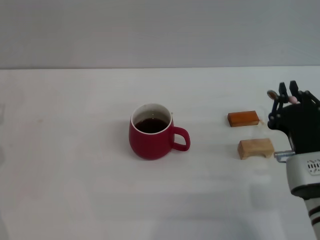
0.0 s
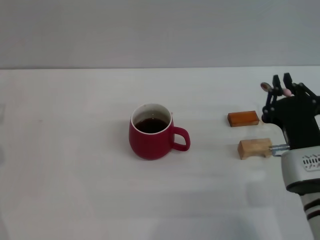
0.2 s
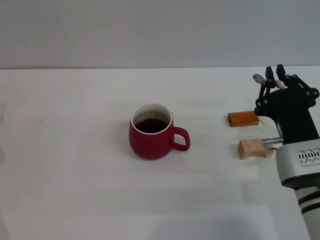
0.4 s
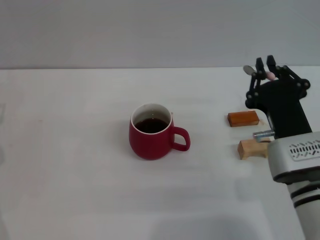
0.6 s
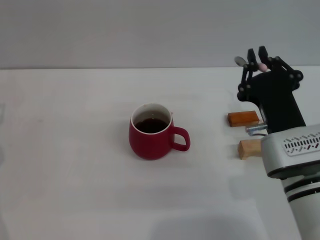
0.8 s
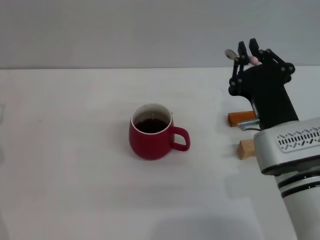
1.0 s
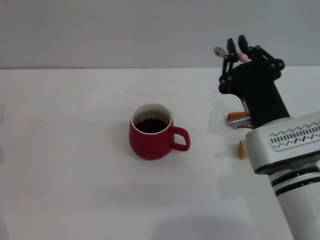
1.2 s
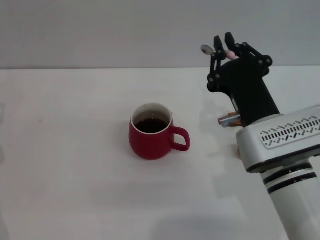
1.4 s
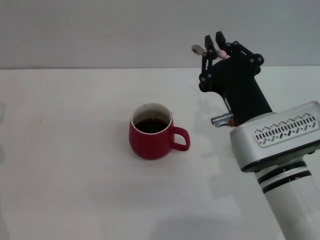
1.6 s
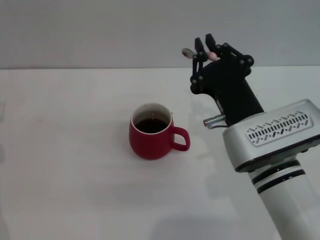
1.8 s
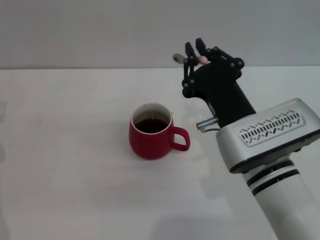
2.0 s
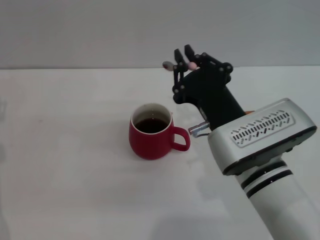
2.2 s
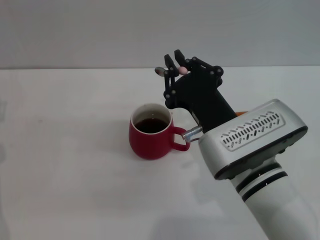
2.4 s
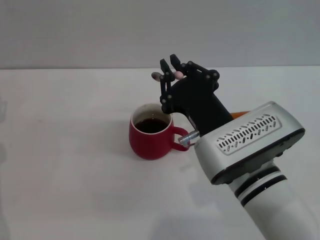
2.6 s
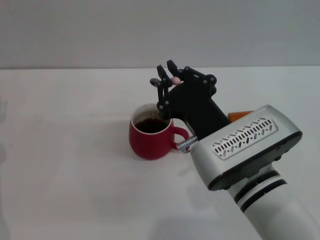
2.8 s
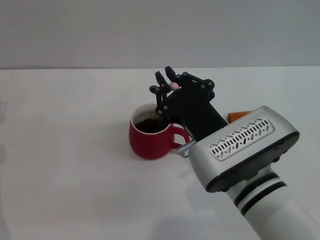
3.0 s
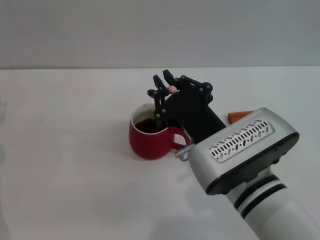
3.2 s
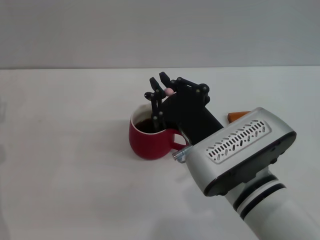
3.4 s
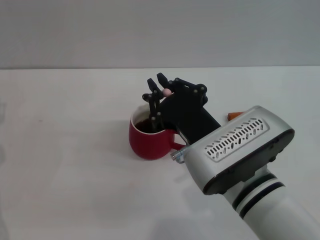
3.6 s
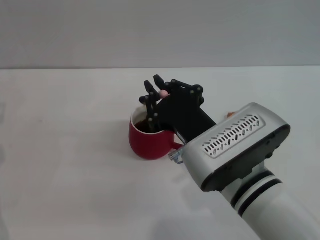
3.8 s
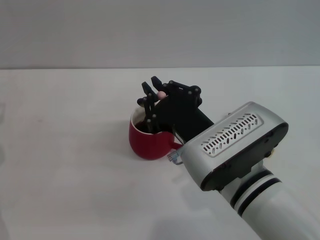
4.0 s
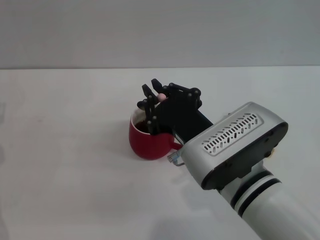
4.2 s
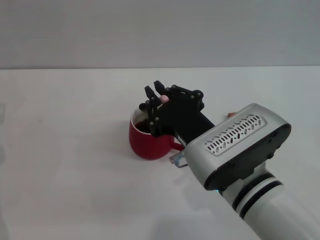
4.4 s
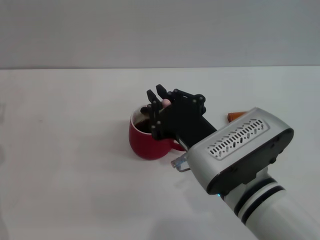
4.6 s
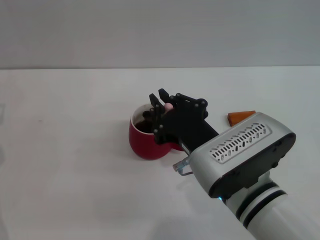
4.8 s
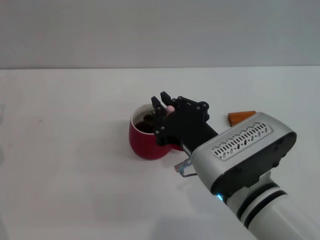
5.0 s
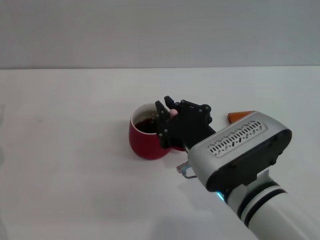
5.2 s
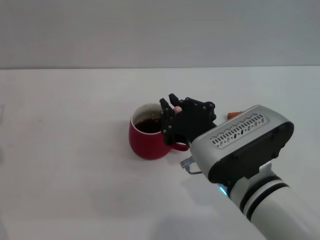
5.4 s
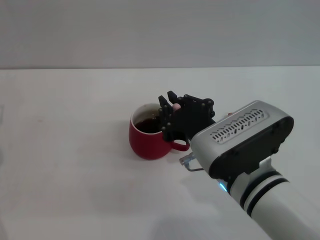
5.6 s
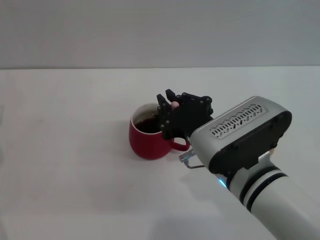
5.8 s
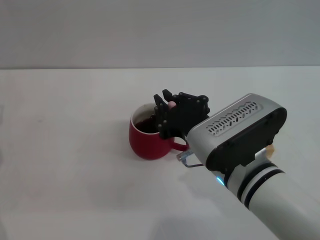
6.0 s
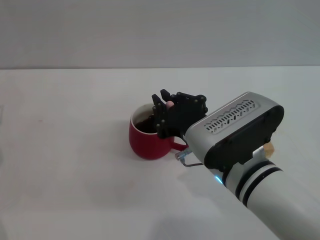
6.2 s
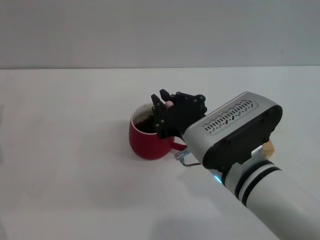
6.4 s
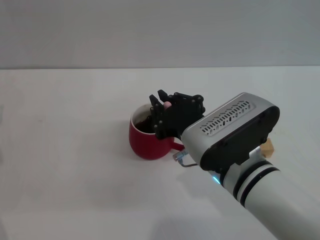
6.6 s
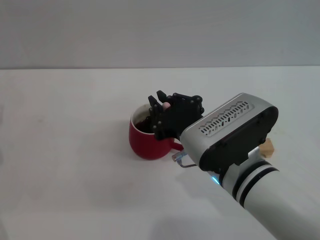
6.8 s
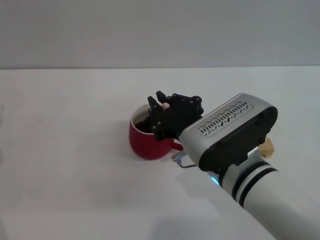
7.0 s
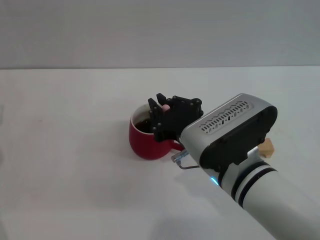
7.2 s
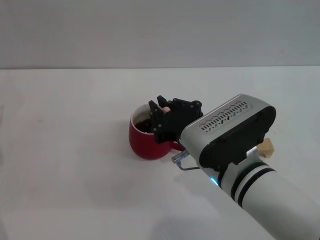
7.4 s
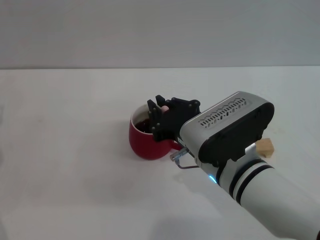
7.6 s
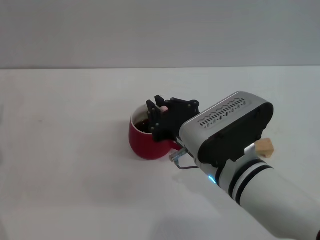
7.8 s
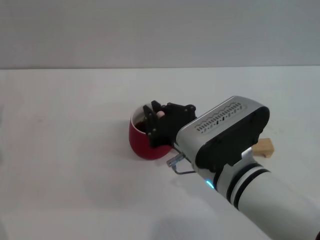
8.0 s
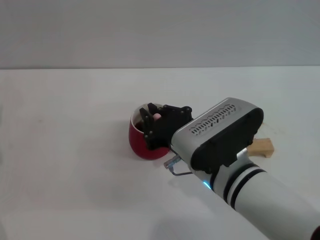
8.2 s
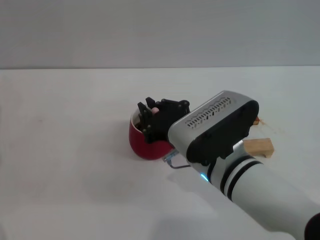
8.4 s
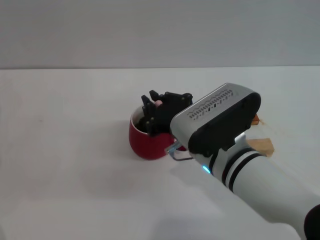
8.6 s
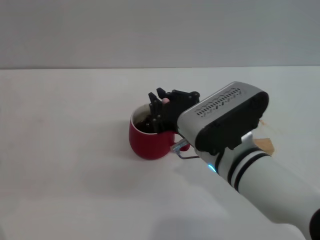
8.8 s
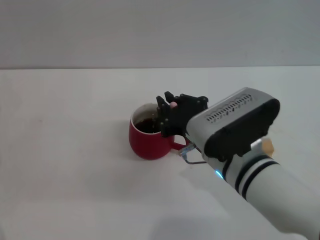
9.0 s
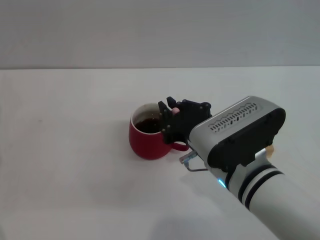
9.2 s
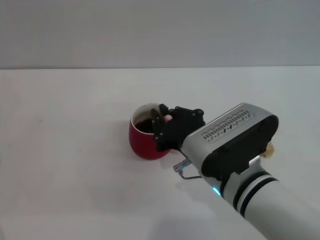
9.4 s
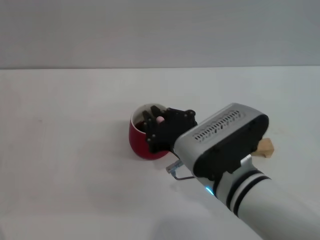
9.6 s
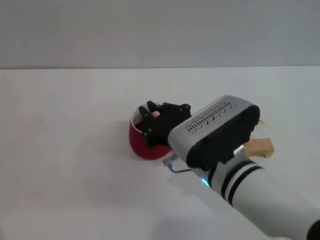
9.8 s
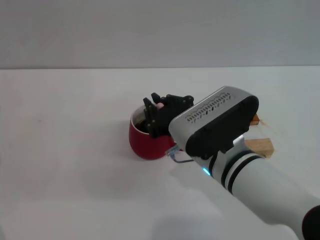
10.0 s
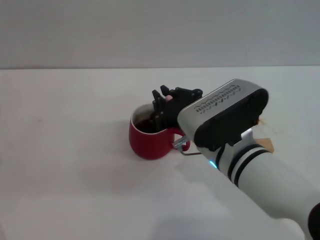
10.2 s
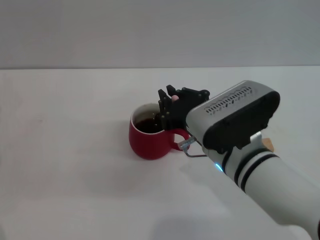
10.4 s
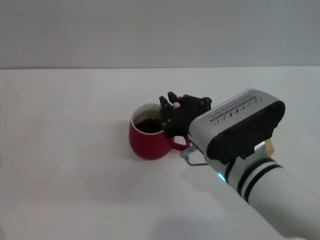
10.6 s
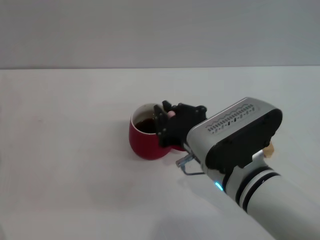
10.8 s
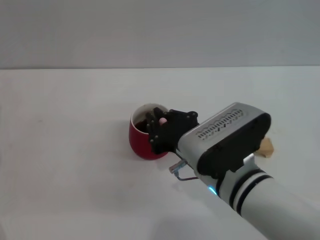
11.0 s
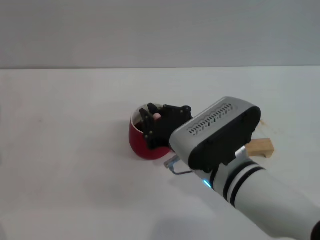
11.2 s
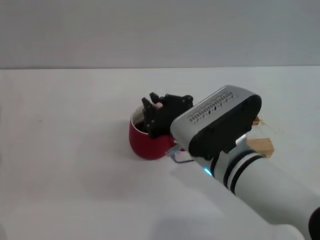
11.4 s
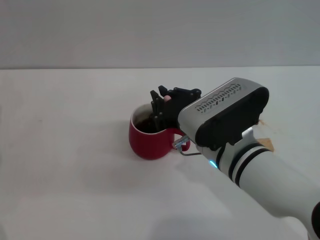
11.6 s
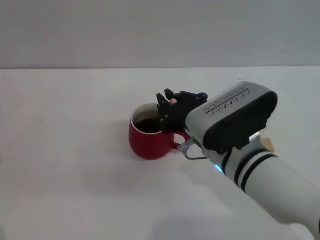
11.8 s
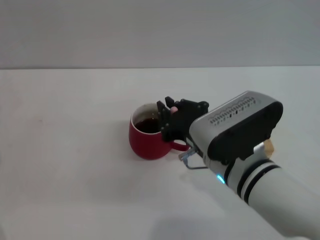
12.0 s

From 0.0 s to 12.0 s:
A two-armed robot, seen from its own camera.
Task of the whole recording: Move the red cup to the center, lift the pink spoon, stir it three times in the cup, and put the spoon into the cup.
From 0.0 s to 1.6 s: The right gripper is displaced to the left and upward by about 10 cm.
From 3.0 s to 6.0 s: There are only small adjustments of the grippers.
From 6.0 s to 7.6 s: Both grippers stay put.
From 7.6 s to 12.0 s: There are only small adjustments of the grippers.

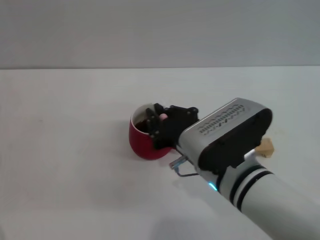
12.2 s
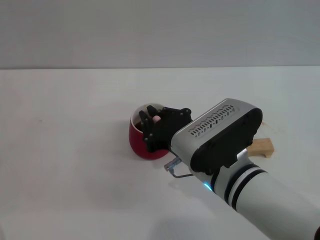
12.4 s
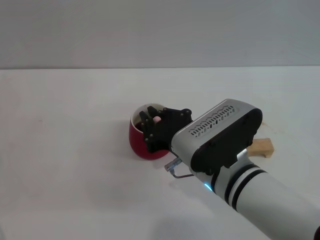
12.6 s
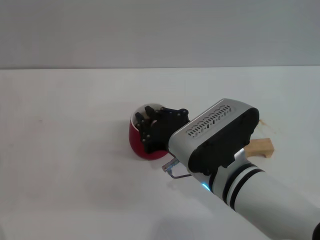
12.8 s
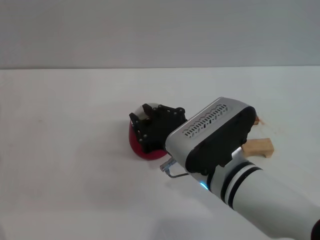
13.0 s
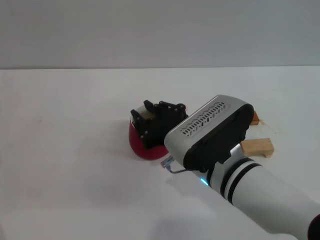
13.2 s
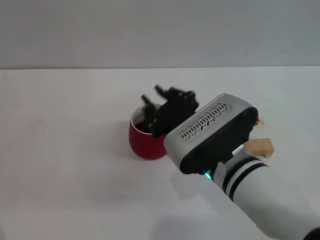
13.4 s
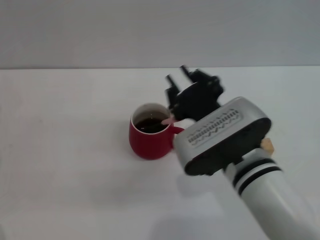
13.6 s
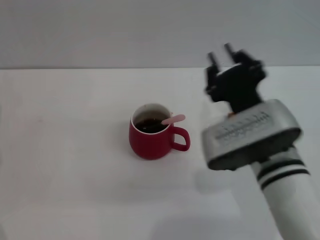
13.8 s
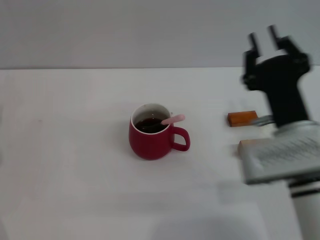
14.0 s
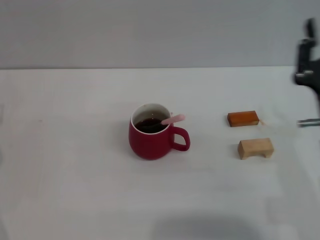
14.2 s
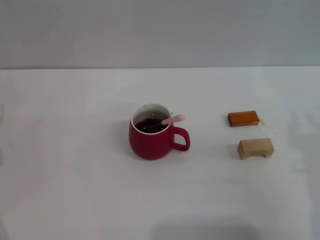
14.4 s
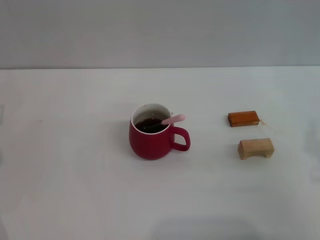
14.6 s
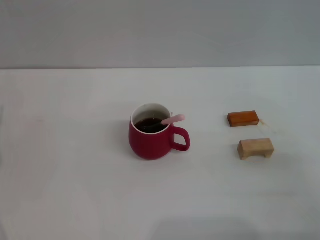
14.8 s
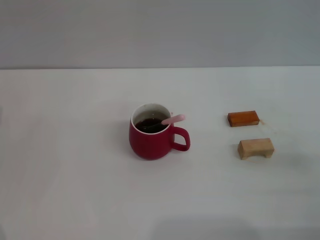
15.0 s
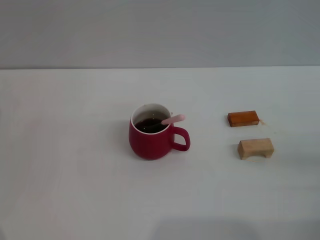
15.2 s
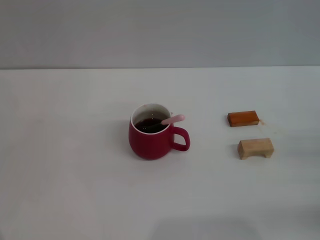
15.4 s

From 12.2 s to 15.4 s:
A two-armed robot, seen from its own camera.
Task of the whole recording: Move the red cup to the center, lift the pink spoon, stir it three times in the cup, and put the spoon into the cup.
From 13.8 s to 15.4 s: The right gripper is displaced to the right by approximately 25 cm.

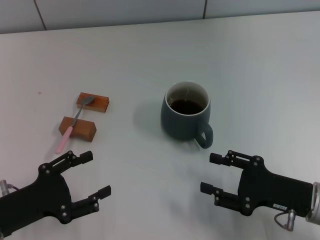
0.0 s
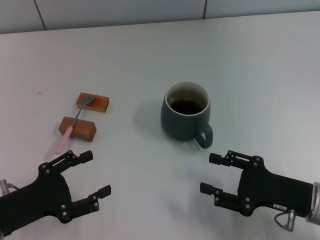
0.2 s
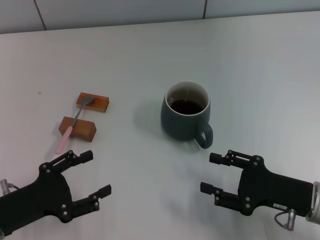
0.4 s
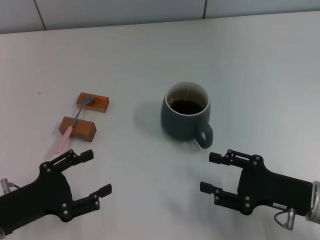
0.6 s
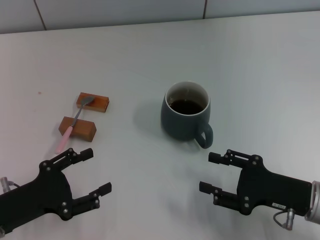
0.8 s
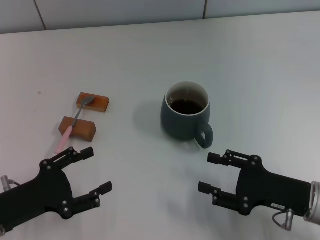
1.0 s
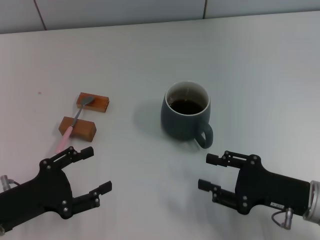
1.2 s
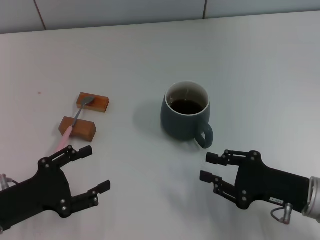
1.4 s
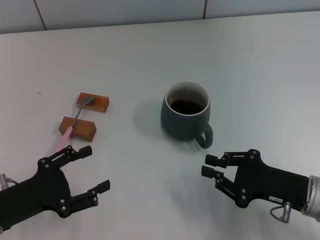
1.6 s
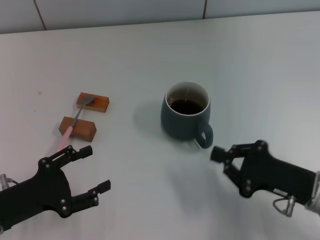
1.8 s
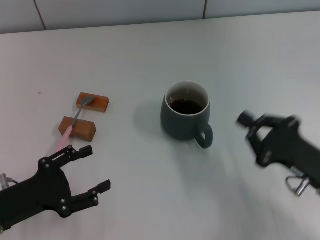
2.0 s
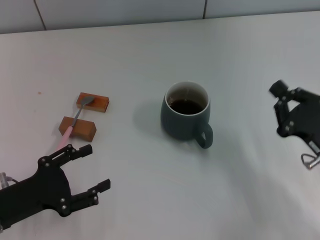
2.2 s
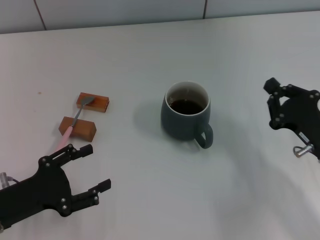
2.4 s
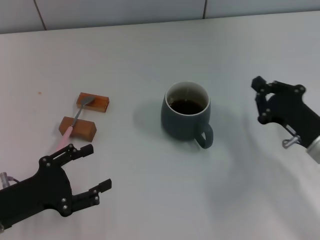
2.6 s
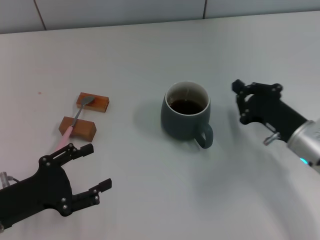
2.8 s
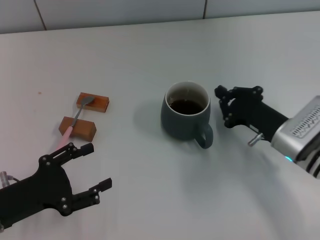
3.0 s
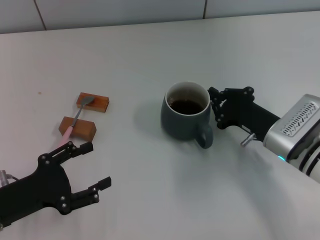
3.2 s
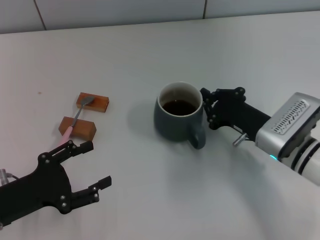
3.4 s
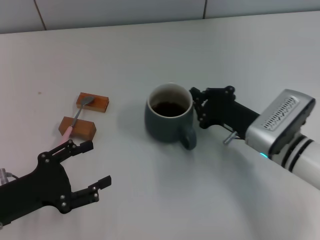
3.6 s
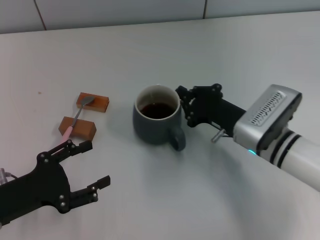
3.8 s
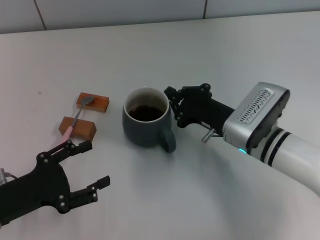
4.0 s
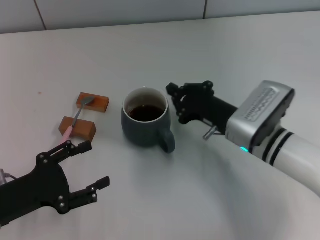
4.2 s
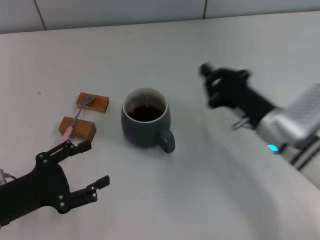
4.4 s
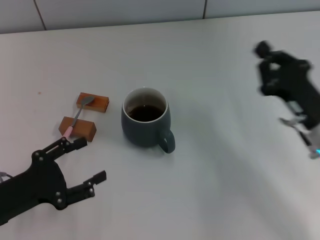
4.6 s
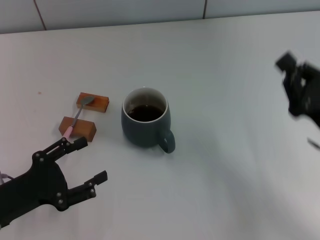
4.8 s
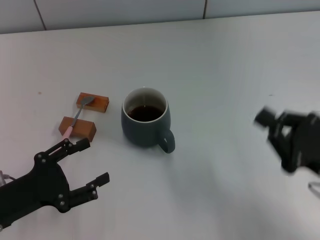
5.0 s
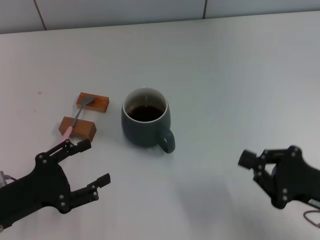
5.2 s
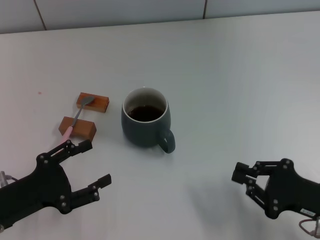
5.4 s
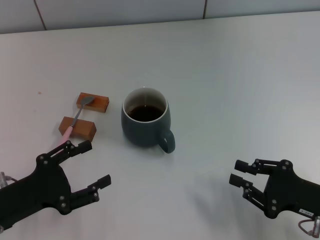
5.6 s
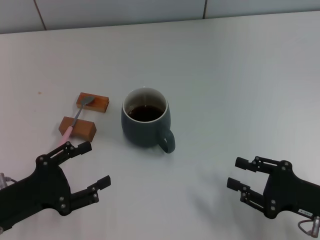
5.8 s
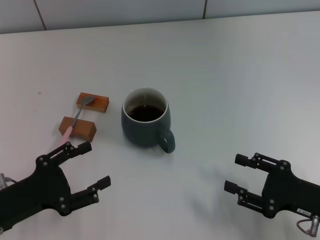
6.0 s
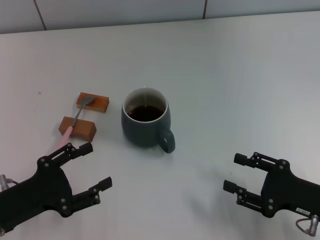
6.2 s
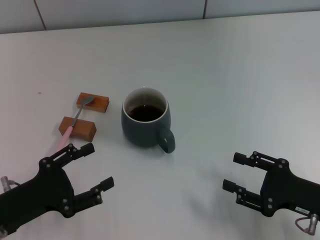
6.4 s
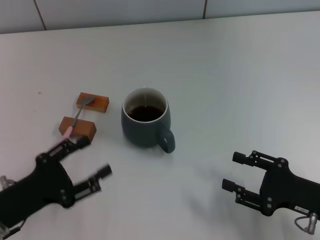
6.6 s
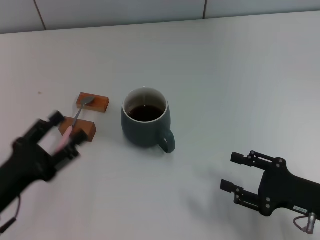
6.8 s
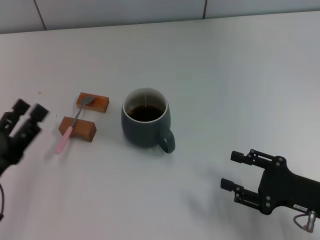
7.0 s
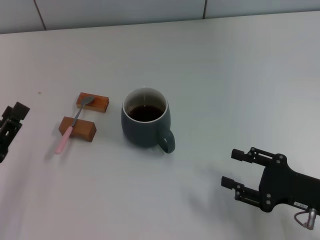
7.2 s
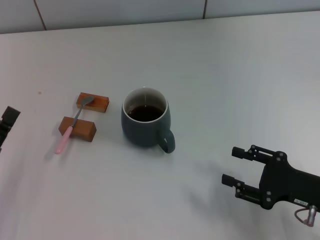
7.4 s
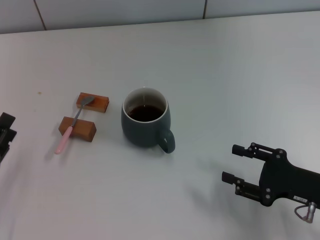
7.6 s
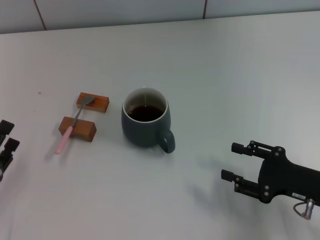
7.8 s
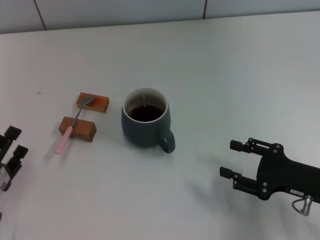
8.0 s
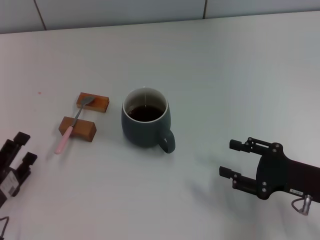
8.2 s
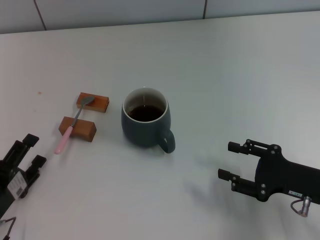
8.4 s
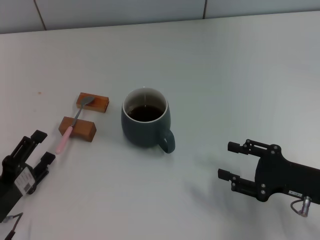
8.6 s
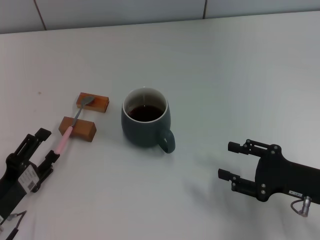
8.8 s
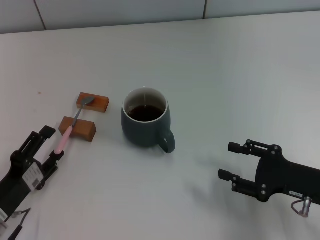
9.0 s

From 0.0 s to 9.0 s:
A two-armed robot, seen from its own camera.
Task of the whole recording: Move the grey cup to the center, lift the pink spoon, stir it three times in the cup, and put the spoon into the cup.
Step, from 0.0 s to 4.0 s: Move the cup with coffee to the center of view with the right gripper.
From 0.0 s to 1.6 s: The right gripper closes.
From 1.6 s to 3.0 s: The right gripper travels forward by some 10 cm, and closes up.
From 4.4 s to 6.0 s: The right gripper goes approximately 15 cm backward and to the right, and opens.
